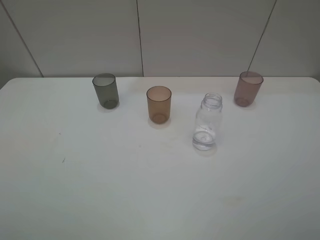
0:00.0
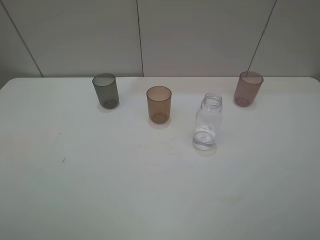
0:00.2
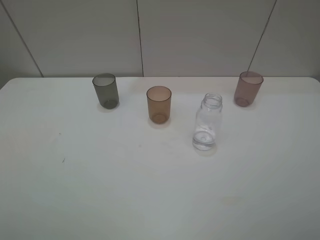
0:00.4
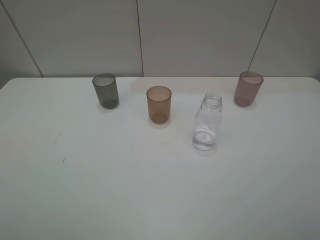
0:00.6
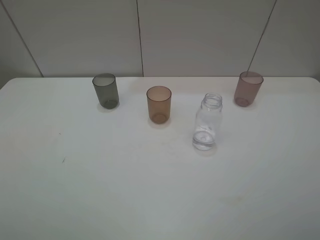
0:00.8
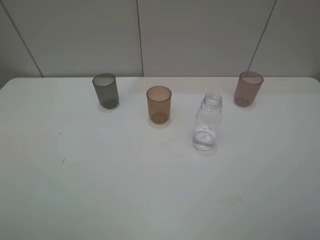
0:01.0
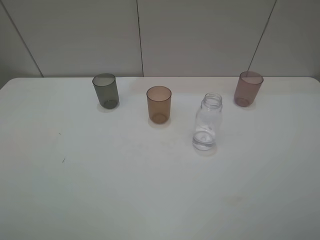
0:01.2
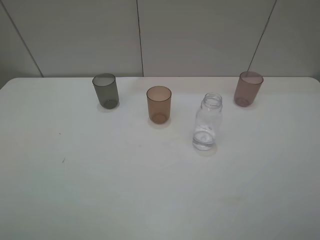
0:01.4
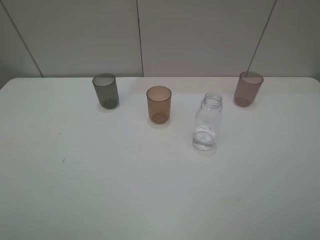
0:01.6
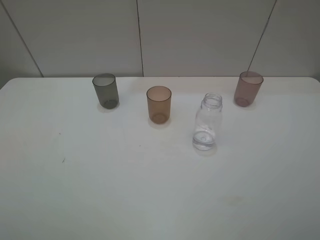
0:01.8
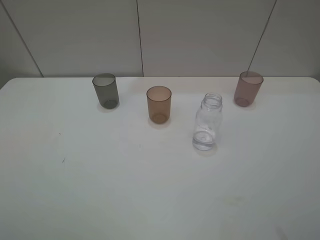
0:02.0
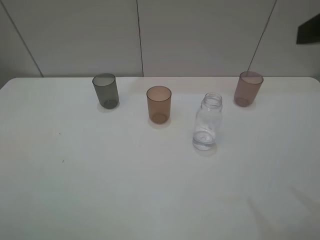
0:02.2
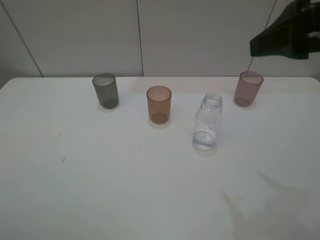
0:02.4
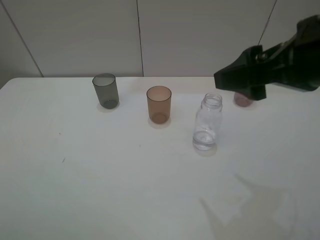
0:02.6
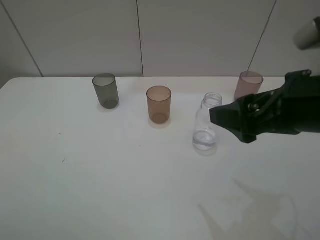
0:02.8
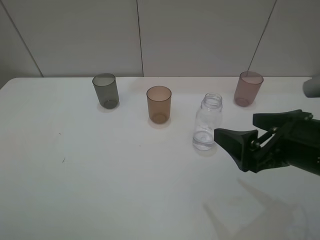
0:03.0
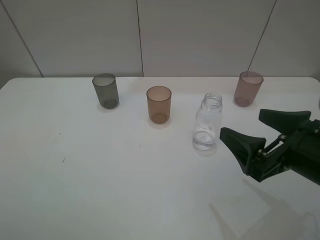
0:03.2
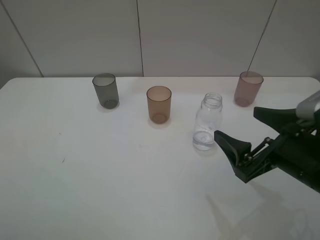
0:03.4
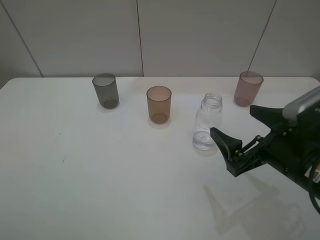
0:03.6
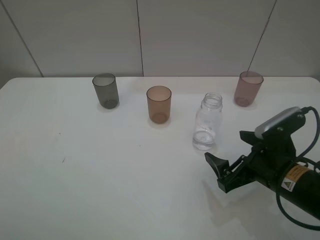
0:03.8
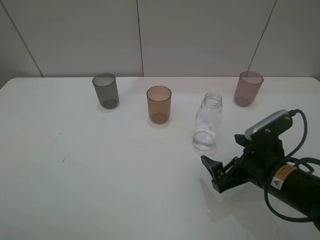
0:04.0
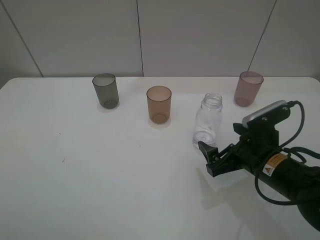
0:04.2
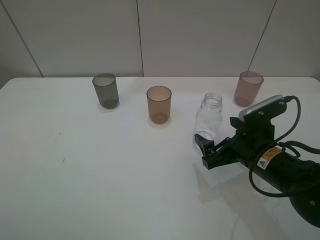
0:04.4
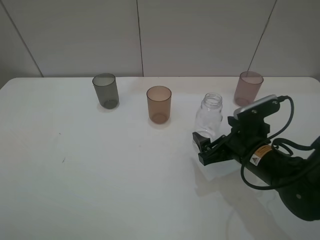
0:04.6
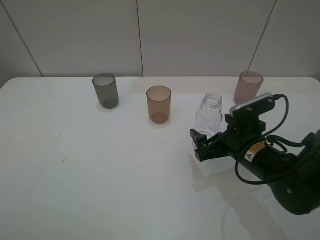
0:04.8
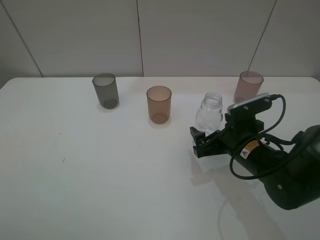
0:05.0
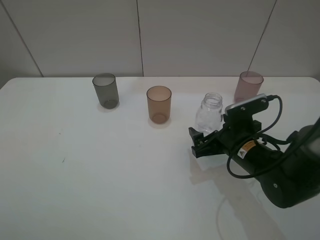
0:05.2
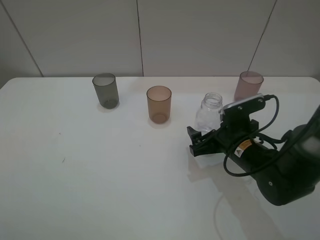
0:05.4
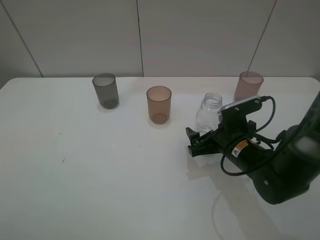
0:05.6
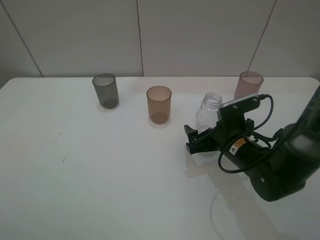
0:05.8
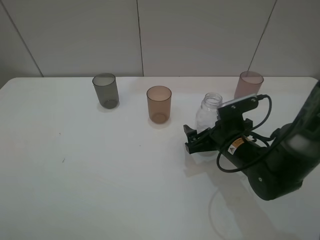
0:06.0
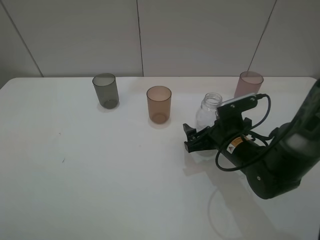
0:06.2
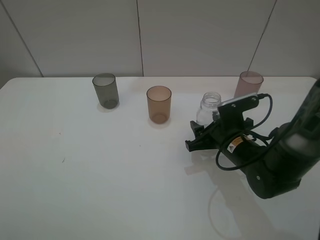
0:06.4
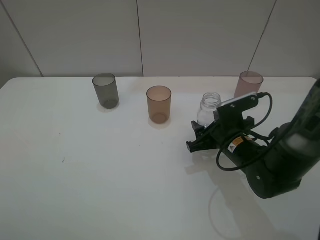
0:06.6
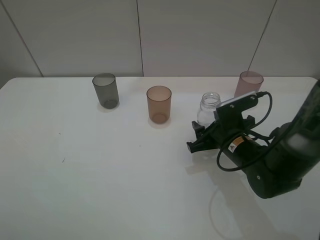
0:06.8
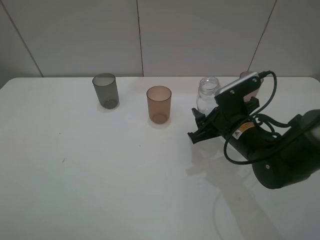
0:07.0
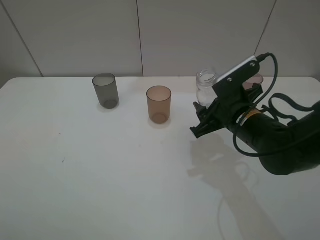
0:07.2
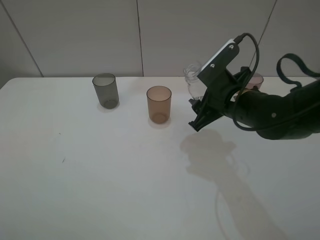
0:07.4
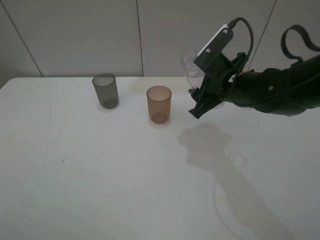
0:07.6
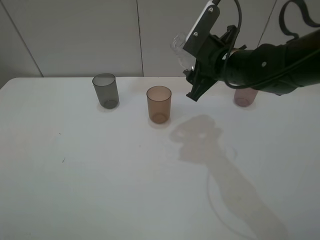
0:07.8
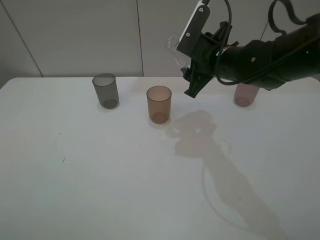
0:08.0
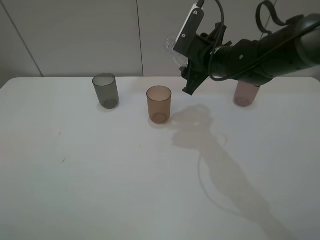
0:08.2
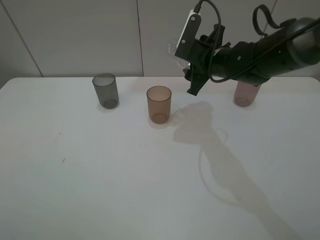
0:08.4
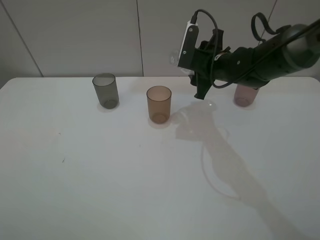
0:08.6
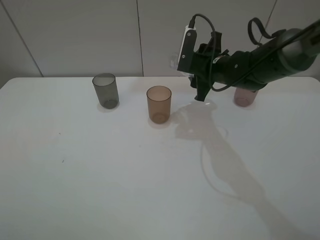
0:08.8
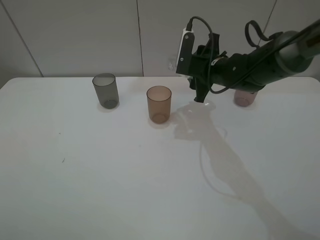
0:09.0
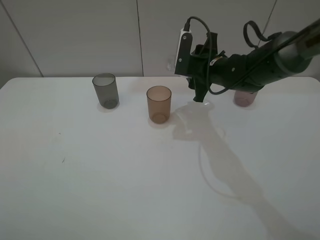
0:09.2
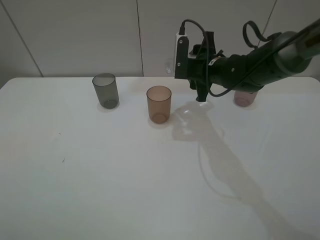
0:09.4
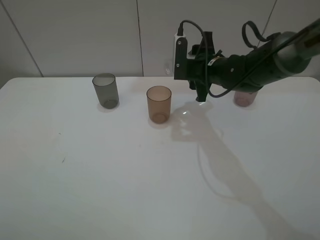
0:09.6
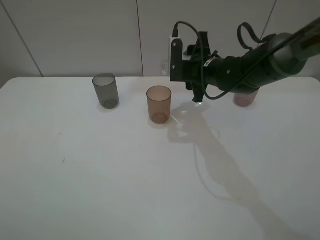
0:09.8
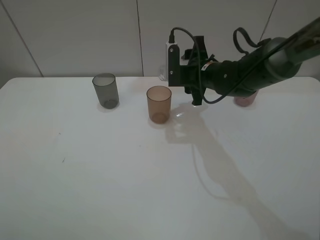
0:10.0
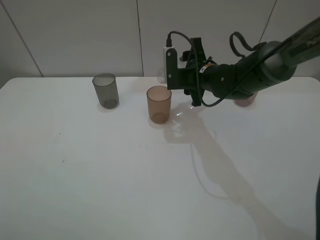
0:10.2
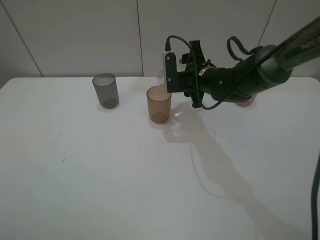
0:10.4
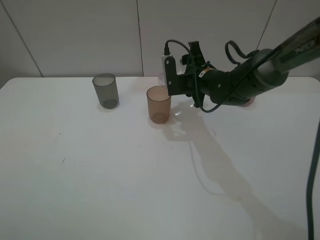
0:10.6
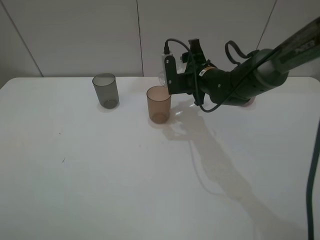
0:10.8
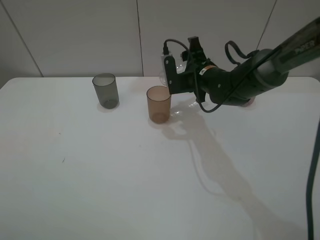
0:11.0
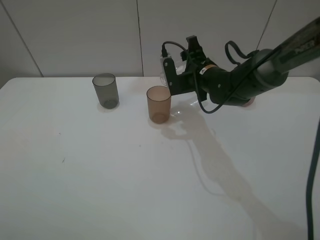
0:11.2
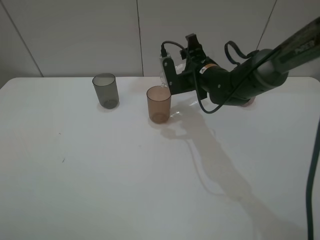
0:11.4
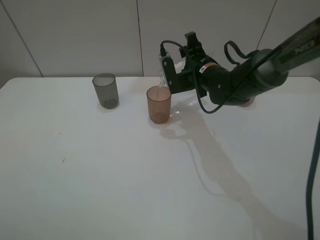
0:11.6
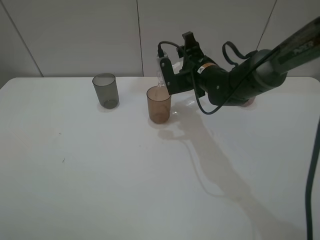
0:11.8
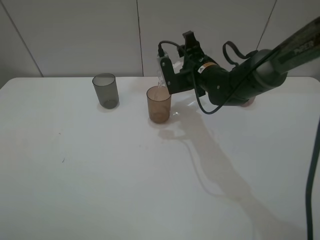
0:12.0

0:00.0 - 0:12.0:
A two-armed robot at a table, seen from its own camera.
Task of the whole recording: pick up the bottle filled with water and pour water into the middle cup of the three cups.
Step, 0:00.0 - 0:07.0: Grasp the transparent bottle with the right gripper.
Step, 0:07.2 - 0:10.8: Pour water from transparent bottle tobrown cup with the right gripper.
0:00.0 - 0:01.6: The two grippers keep their place.
0:01.6 - 0:03.0: The right gripper is displaced forward, downward and to the left by approximately 15 cm.
0:03.0 - 0:04.4: The right gripper heads downward and forward, covering about 10 cm.
0:04.4 - 0:06.0: The right gripper changes place by approximately 5 cm.
0:06.0 - 0:07.6: The right gripper heads upward and forward, covering roughly 15 cm, and closes up.
0:07.6 - 0:09.0: The right gripper moves forward, some 10 cm.
0:09.0 - 0:10.4: The grippers stay close to where they were, moving slightly.
0:10.4 - 0:12.0: The grippers move only a little.

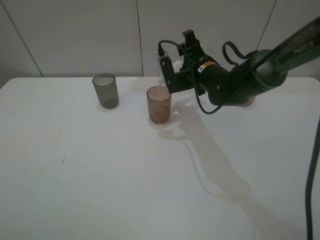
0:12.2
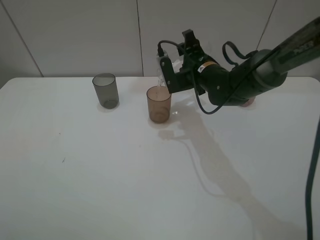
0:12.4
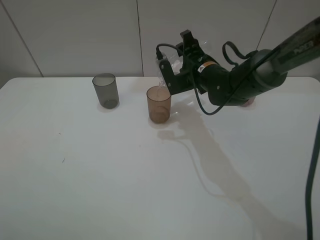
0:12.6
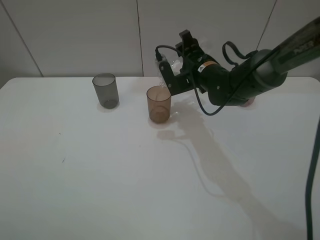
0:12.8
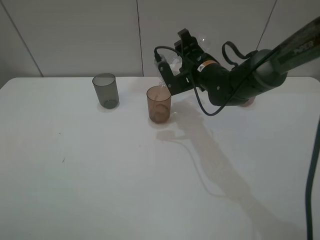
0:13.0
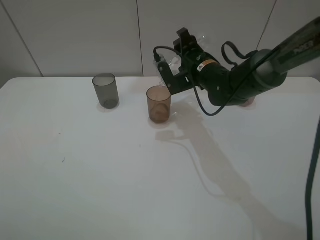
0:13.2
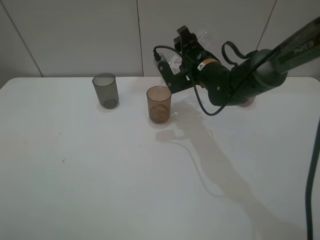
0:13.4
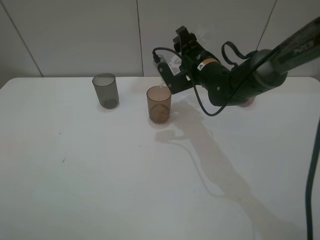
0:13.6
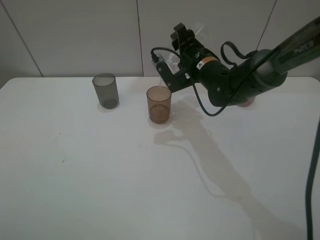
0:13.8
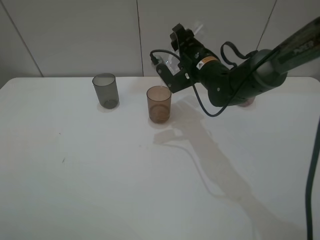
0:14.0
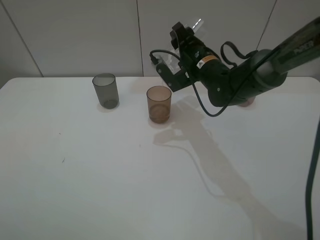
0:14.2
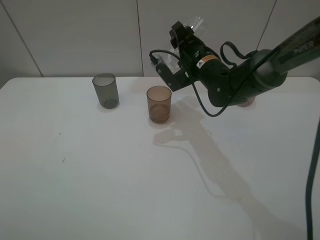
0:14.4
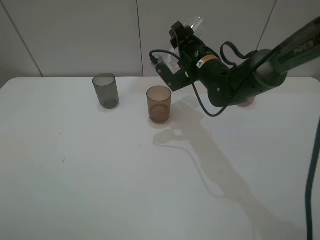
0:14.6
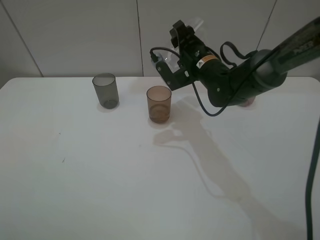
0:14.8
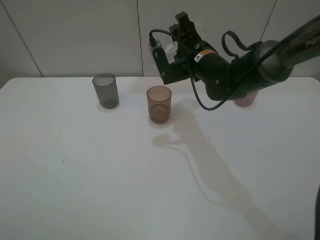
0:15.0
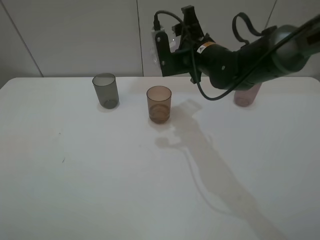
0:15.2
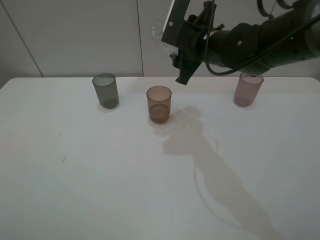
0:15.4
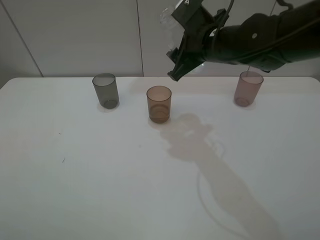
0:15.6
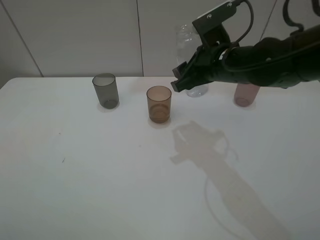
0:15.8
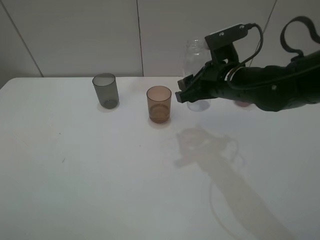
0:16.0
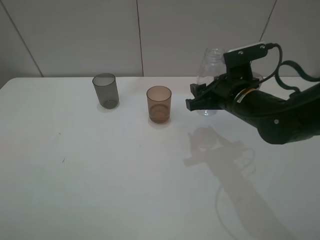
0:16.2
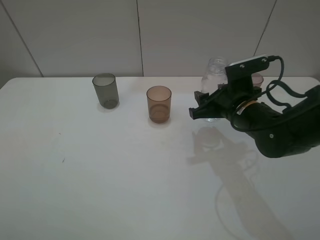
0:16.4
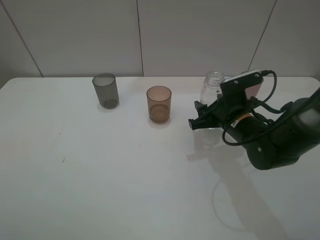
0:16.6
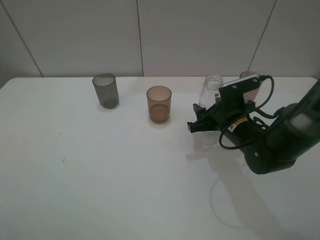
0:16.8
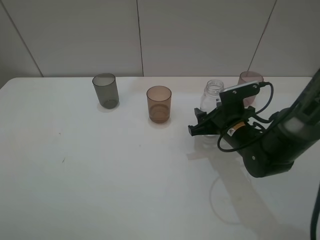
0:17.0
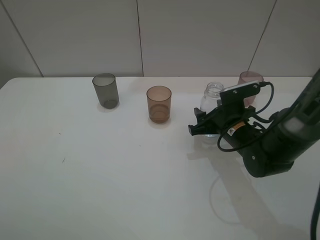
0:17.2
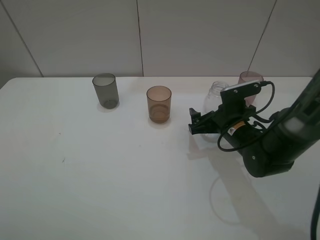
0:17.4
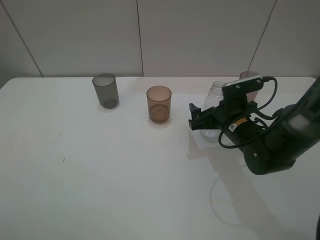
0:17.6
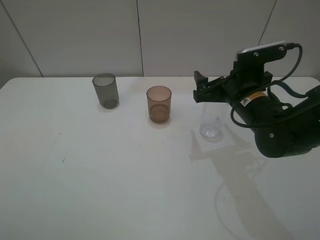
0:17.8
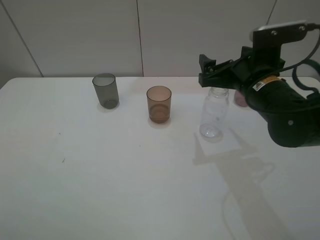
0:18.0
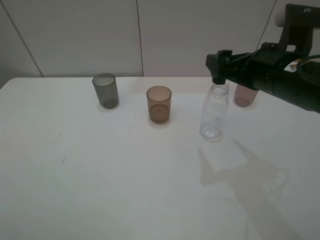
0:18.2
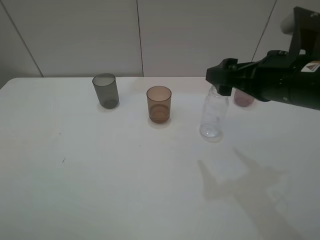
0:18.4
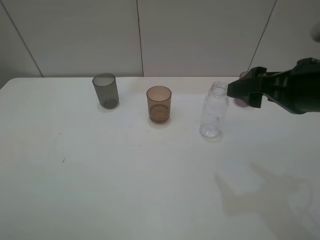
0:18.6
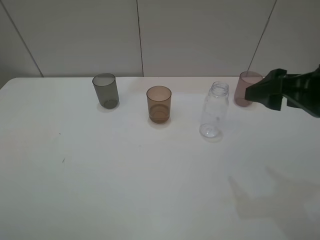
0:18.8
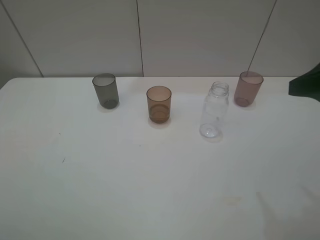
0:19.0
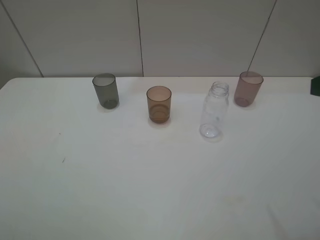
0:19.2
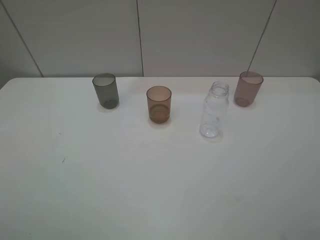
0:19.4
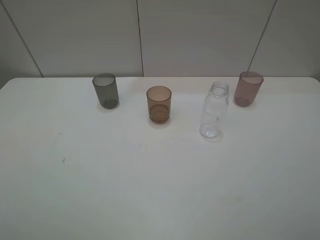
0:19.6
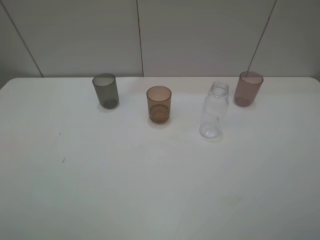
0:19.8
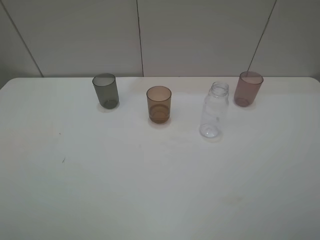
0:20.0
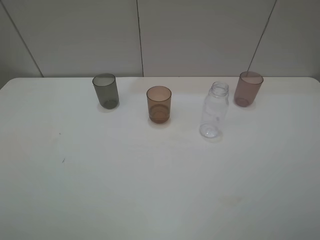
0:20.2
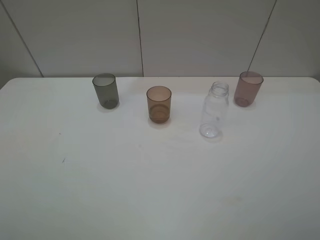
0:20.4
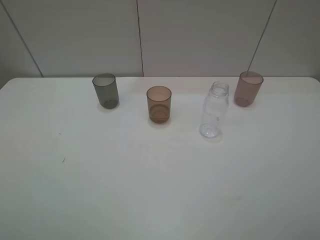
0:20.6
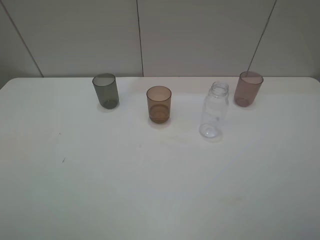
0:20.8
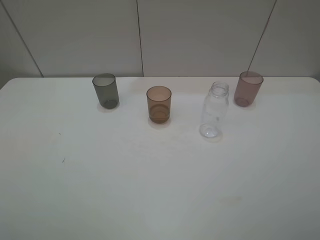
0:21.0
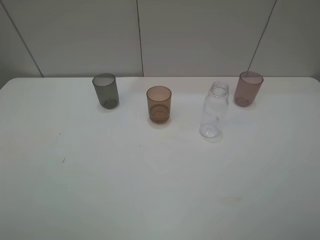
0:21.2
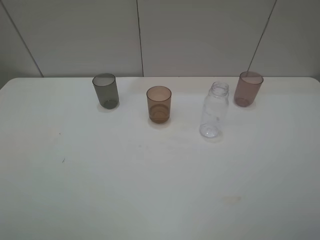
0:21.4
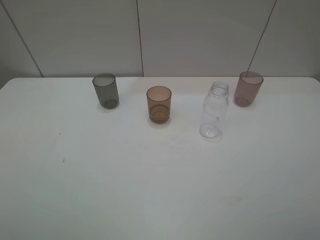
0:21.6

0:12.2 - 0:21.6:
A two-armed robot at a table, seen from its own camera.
Task of the whole recording: pick up the bottle filled with water and pour water into the middle cup of the three cups.
Step, 0:12.2 - 0:18.0: Place the transparent bottle with the right gripper.
0:12.2 - 0:13.8: There are only small adjustments of the grippers.
0:13.8 - 0:15.4: The right gripper travels upward by approximately 5 cm.
0:15.4 - 0:17.0: The right gripper heads downward, backward and to the right, covering about 20 cm.
0:17.0 - 0:18.4: The right gripper is displaced upward by roughly 15 cm, and opens its fingers.
0:18.4 - 0:20.0: The right gripper goes about 20 cm backward and to the right.
0:20.0 - 0:21.6: Neither gripper changes place.

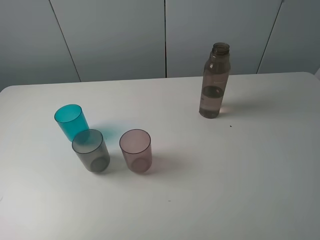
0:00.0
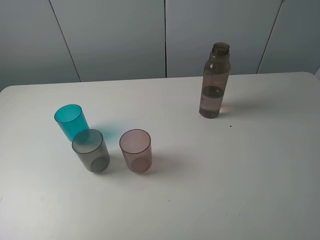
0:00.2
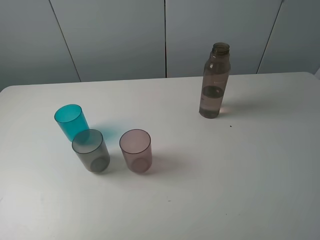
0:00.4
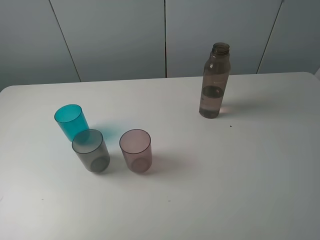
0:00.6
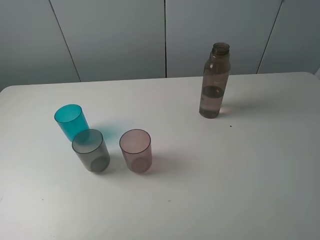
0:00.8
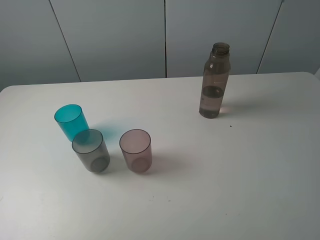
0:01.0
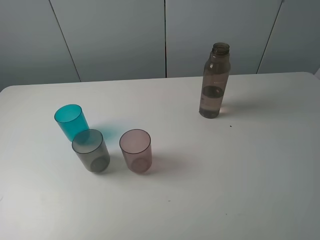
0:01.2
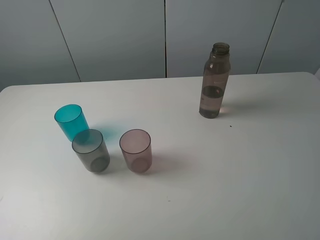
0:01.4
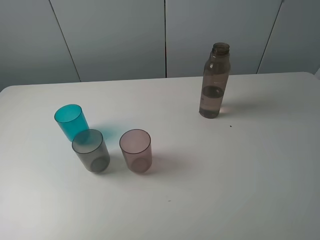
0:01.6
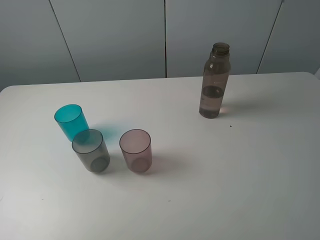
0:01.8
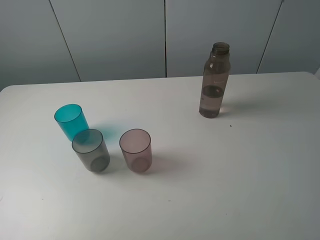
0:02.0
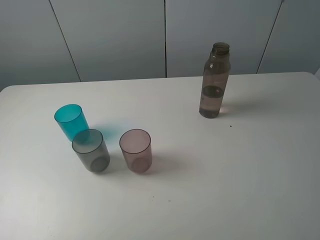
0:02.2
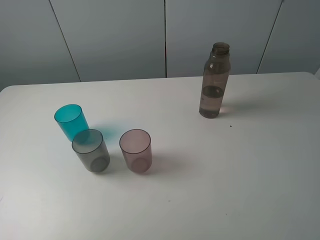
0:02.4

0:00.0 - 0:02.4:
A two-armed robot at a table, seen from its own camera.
Task of the whole recording: pick up the bottle filled with water and pour water into the middle cup of the three cups.
0:00.0 - 0:01.2: Both grippers stay put.
